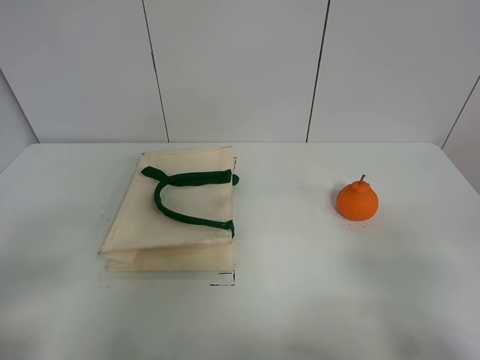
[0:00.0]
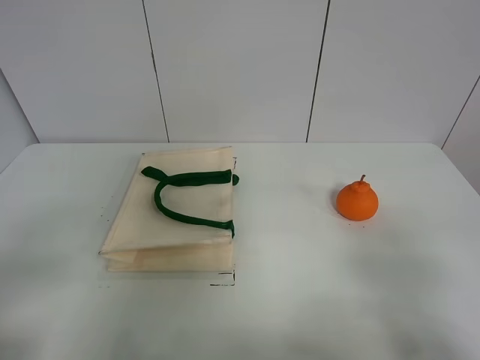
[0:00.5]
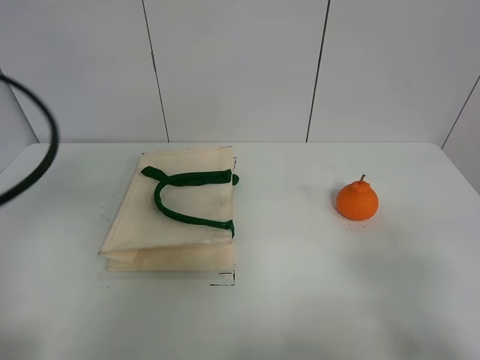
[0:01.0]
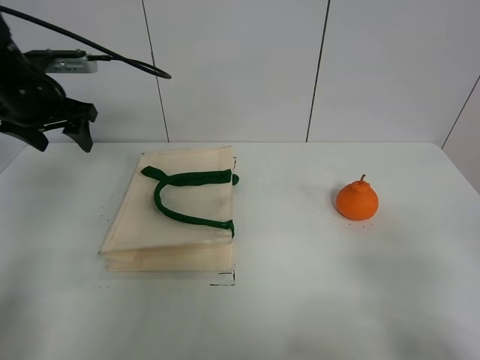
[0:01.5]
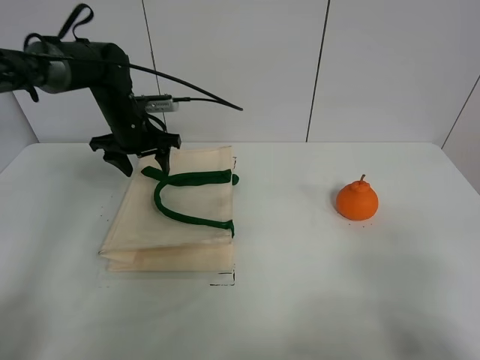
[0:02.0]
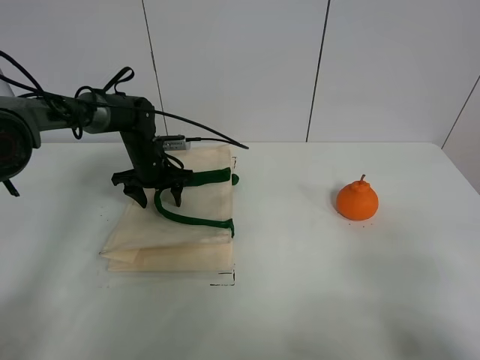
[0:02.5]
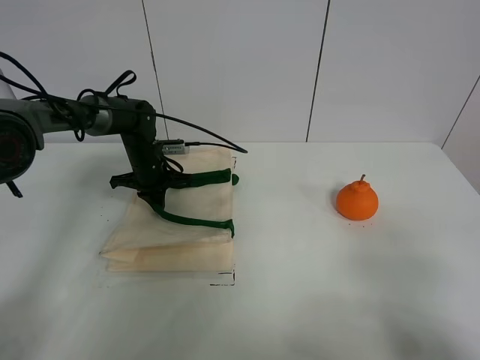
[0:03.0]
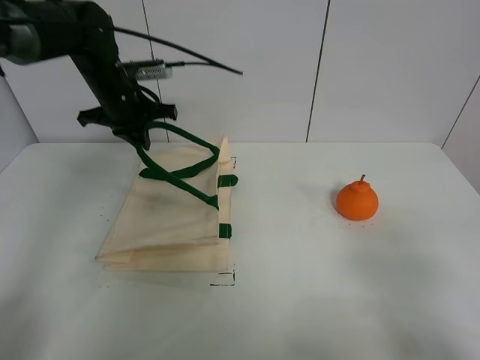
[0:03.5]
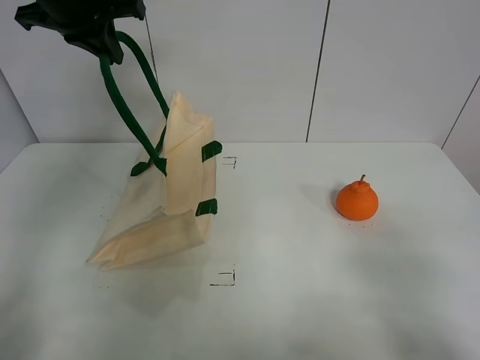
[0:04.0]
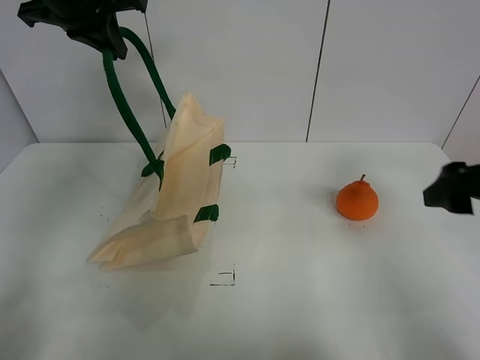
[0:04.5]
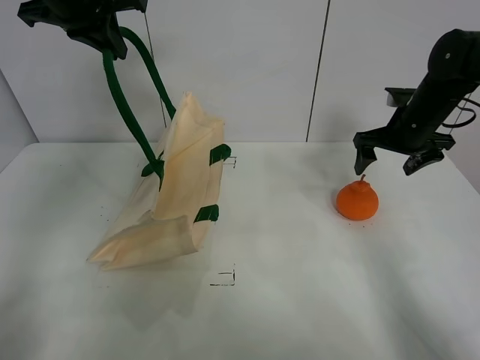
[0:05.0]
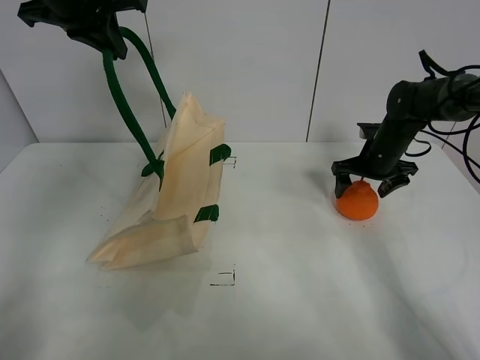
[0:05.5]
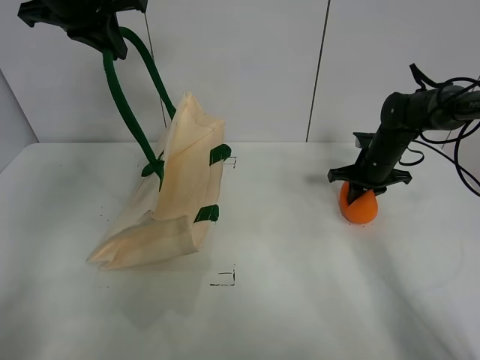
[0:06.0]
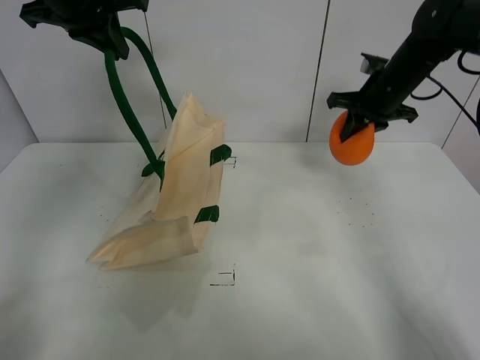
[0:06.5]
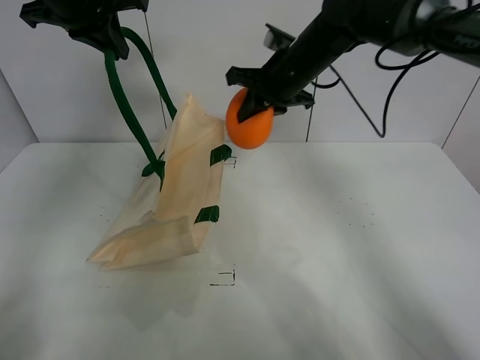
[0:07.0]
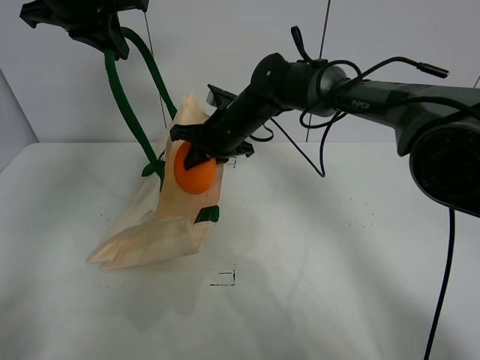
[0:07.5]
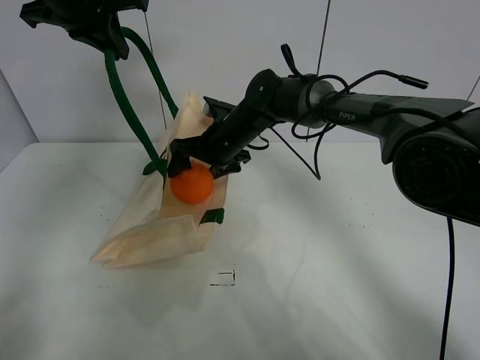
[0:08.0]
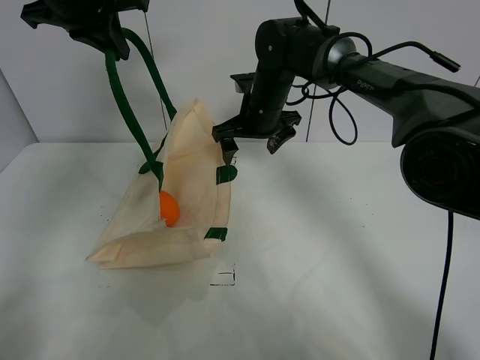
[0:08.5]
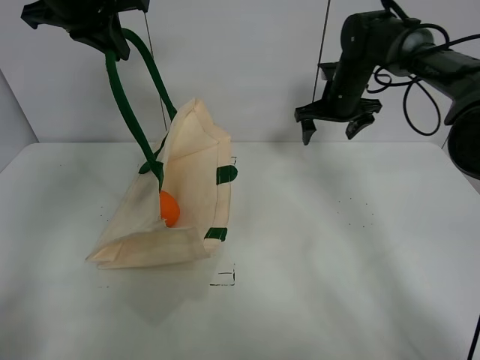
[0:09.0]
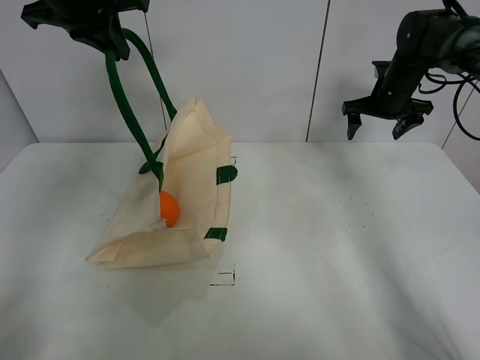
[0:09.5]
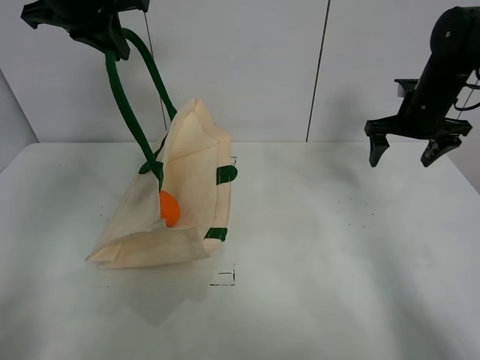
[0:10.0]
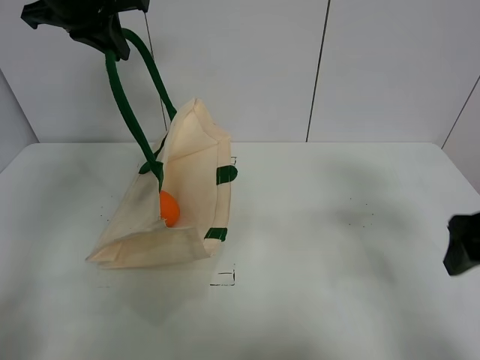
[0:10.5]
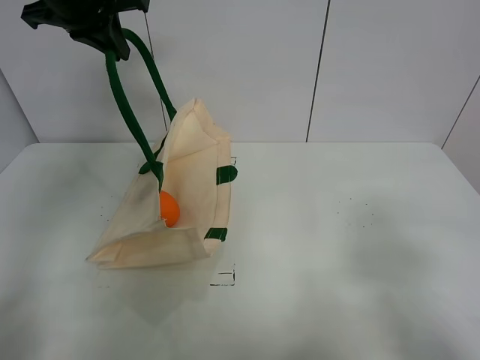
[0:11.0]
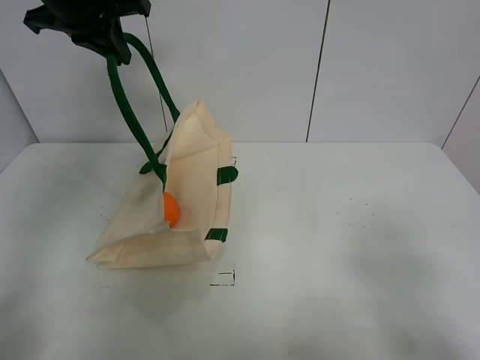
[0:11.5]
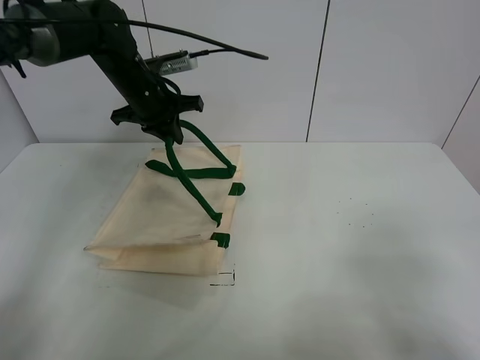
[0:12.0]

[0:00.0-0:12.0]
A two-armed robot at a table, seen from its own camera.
Task of the whole recording: open the white linen bag and put the orange in the bag.
Step, 0:00.0 to 0:04.0: Put down the handbag with left gripper.
Step, 0:04.5 to 0:06.0: Grasp the orange with right gripper.
Step, 0:06.5 to 0:08.5: Place the orange in the handbag with right gripper.
0:00.0 to 0:02.0: The left gripper heads forward, covering some 50 cm.
0:02.0 to 0:04.0: The left gripper travels upward by about 20 cm, and closes its fingers.
0:04.0 to 0:06.0: The right gripper heads forward, covering roughly 40 cm, and closes.
0:06.0 to 0:08.0: The right gripper moves to the left, about 25 cm, and opens its fingers.
0:08.0 to 0:10.0: The right gripper is displaced to the right by approximately 30 cm.
0:10.0 to 0:12.0: The right gripper goes approximately 40 cm backward. The left gripper moves downward, some 15 cm.

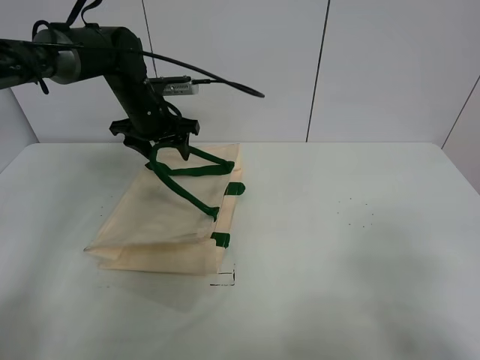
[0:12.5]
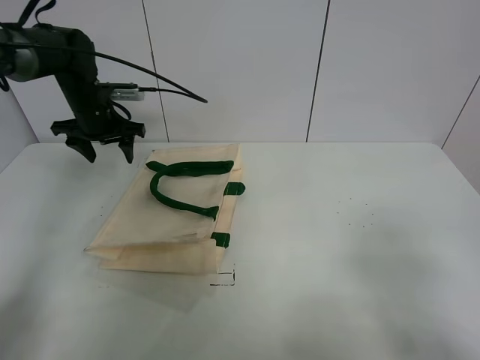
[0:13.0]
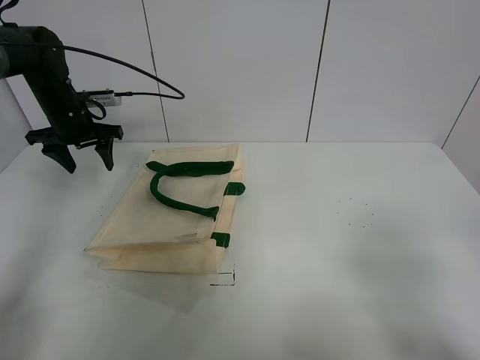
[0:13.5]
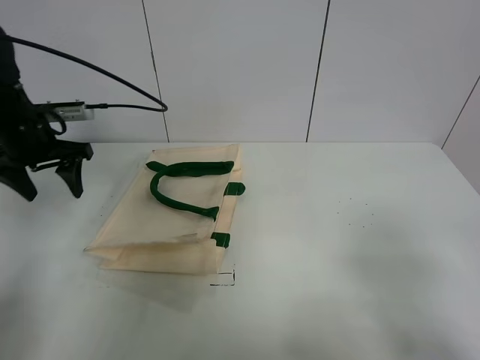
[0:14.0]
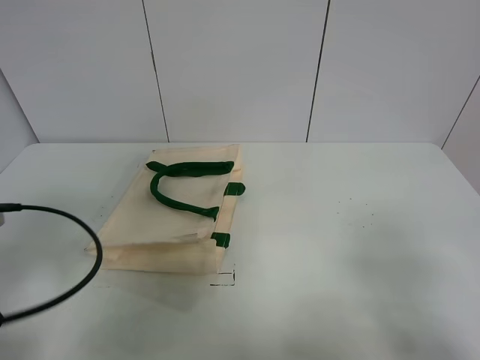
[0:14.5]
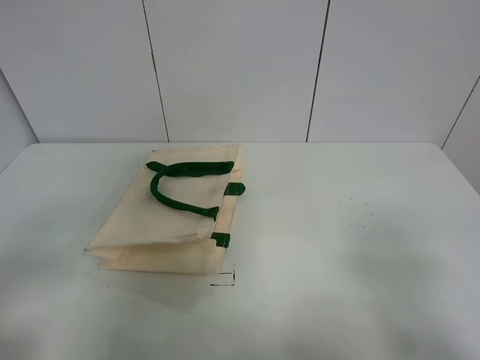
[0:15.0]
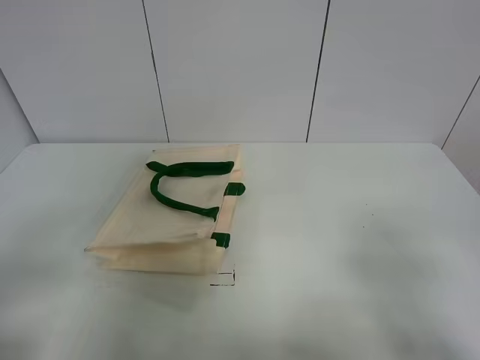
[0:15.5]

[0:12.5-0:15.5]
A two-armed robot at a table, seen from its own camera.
Task of the whole recording: open the white linen bag and put the orange in the bag.
0:12.5 to 0:14.0: The left gripper travels to the left and backward by roughly 20 cm.
0:14.0 to 0:15.5: The left gripper travels backward by about 35 cm.

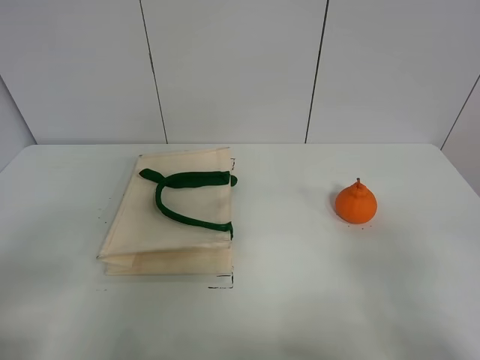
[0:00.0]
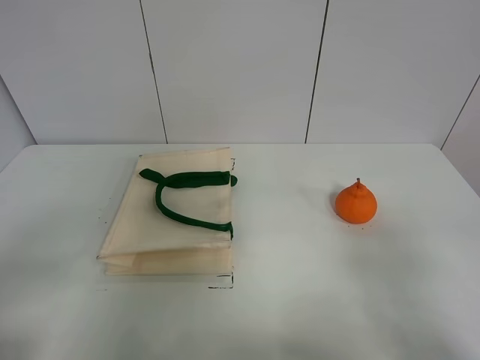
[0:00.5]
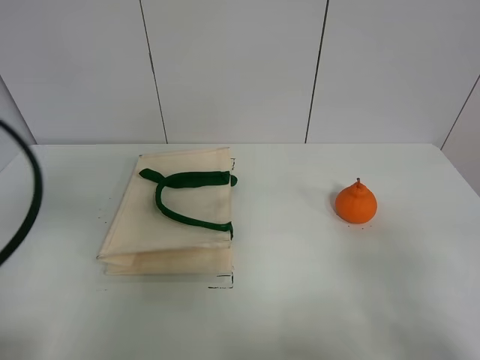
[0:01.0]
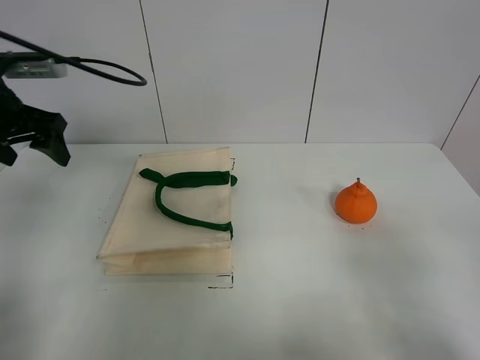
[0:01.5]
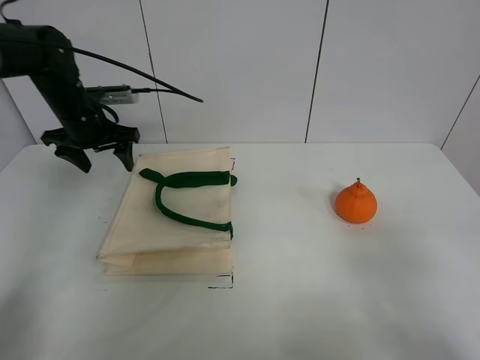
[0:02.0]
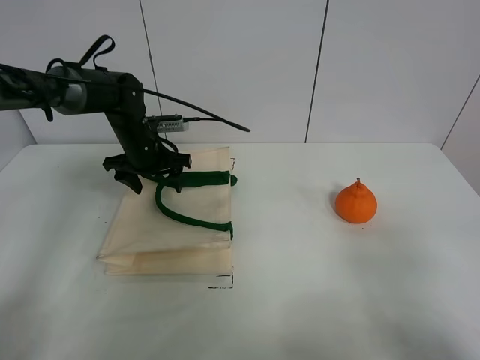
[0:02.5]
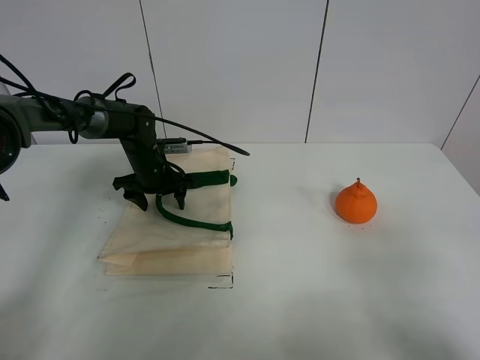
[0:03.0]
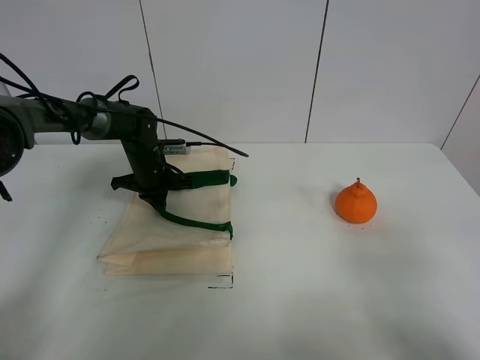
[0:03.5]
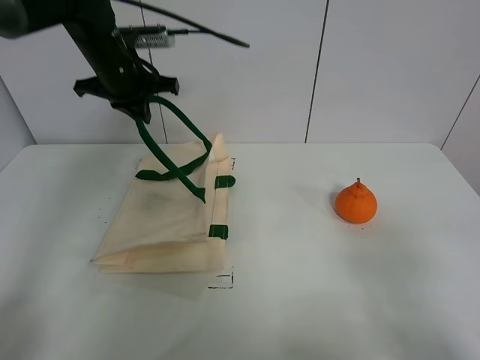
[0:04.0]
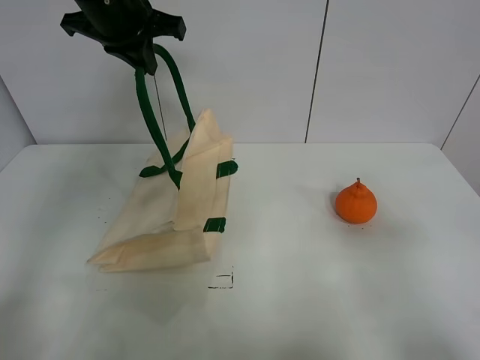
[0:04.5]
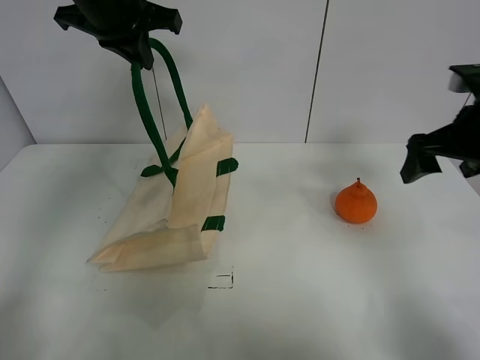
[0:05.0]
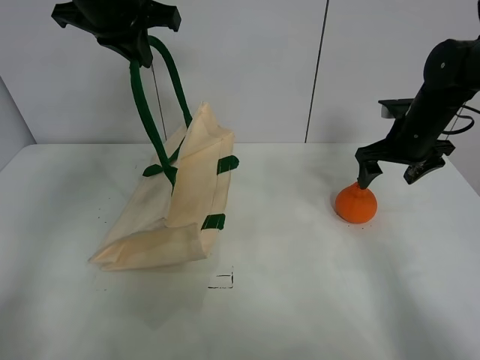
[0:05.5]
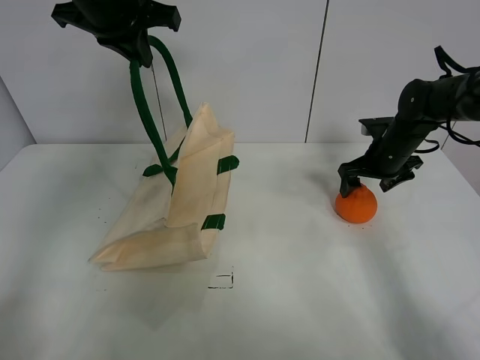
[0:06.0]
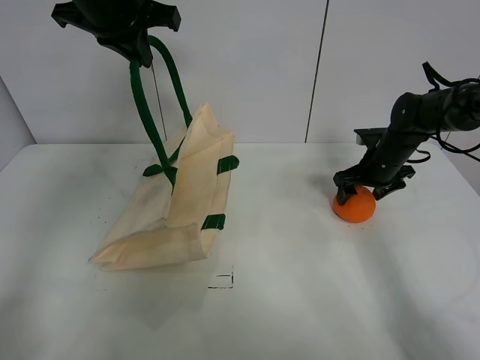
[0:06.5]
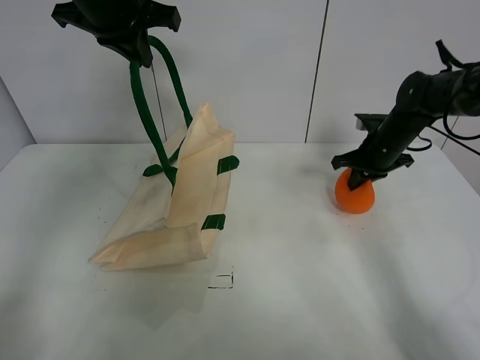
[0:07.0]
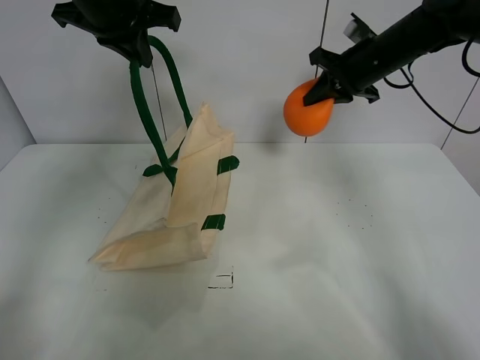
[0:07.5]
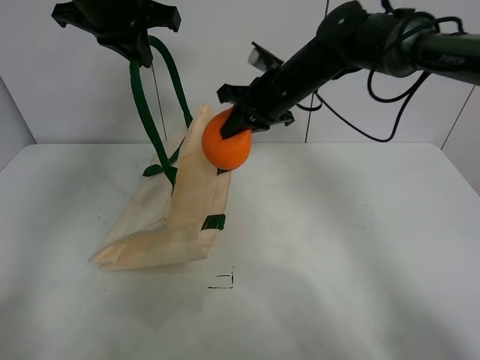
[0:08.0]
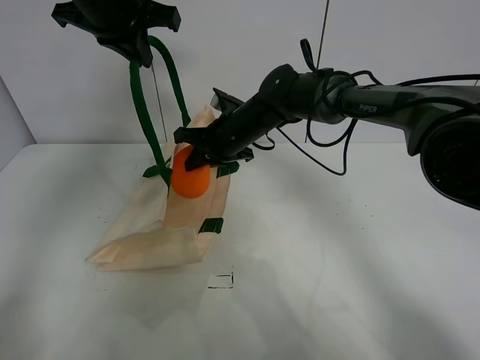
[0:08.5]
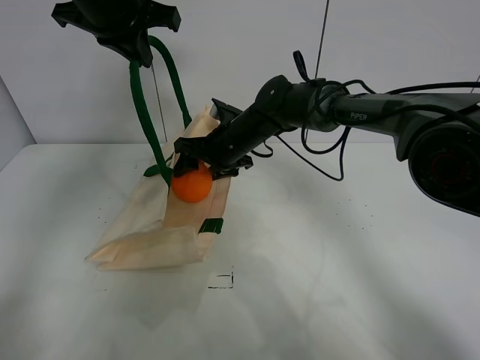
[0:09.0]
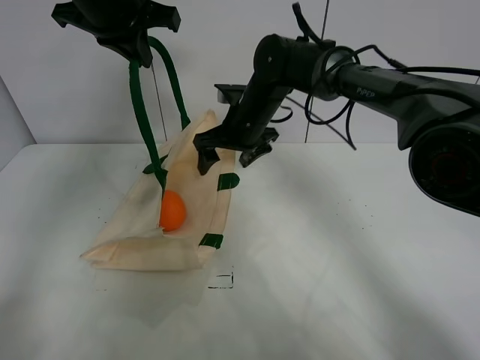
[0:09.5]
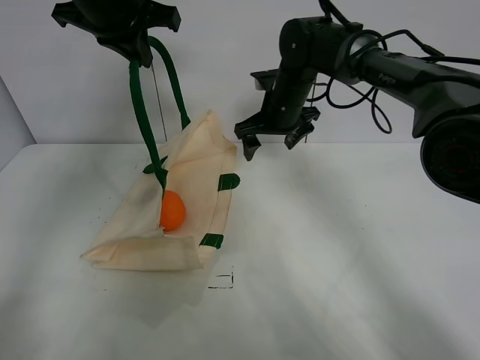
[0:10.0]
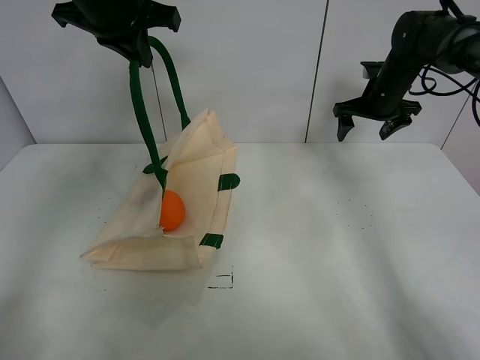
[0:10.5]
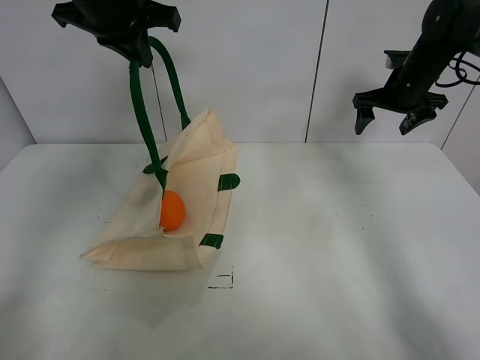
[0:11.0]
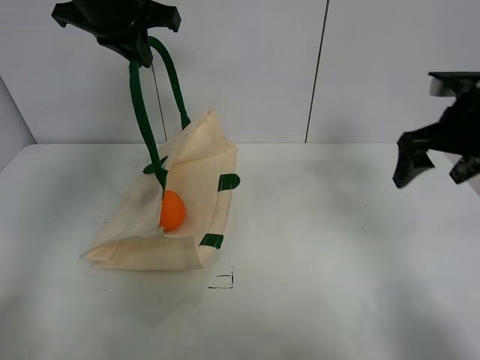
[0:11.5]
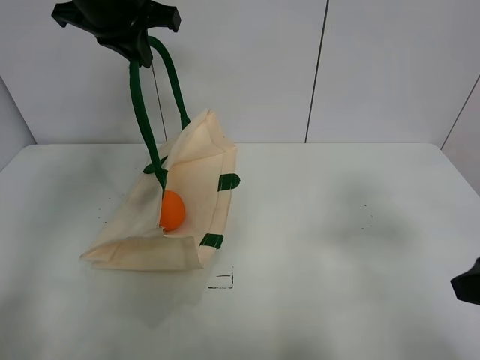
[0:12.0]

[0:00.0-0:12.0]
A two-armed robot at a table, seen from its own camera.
Task of the whole recording: open the white linen bag and put the orange in the bag.
Step, 0:00.0 to 0:04.0: Lift the handbag with left gripper.
Step, 0:04.5 to 0:06.5: Grasp the orange with right gripper.
Step, 0:07.0 to 0:09.5: Place the orange in the handbag with right gripper.
0:00.0 to 0:02.0: The left gripper goes about 40 cm forward.
0:02.0 to 0:04.0: The left gripper travels upward and to the right by some 10 cm, and closes.
0:04.0 to 0:06.0: The right gripper moves forward, some 40 cm, while the left gripper moves upward, about 10 cm.
0:06.0 to 0:08.0: The right gripper is displaced to the left and upward by roughly 25 cm, and closes up.
0:08.0 to 0:10.0: The right gripper opens its fingers.
0:10.0 to 0:12.0: The right gripper travels backward and to the right by about 40 cm.
